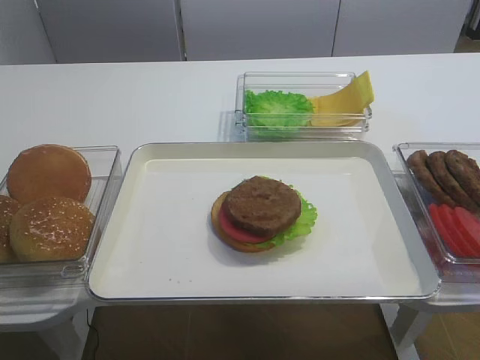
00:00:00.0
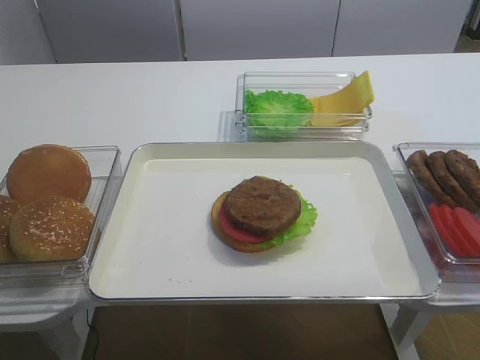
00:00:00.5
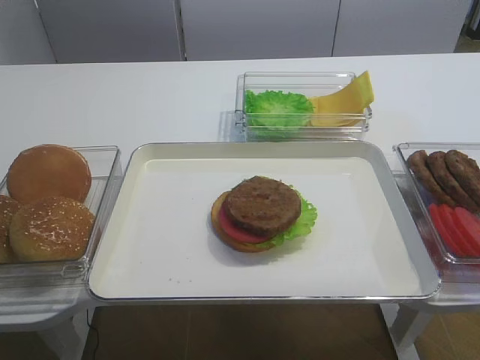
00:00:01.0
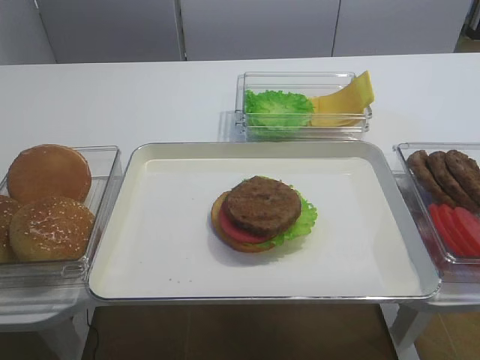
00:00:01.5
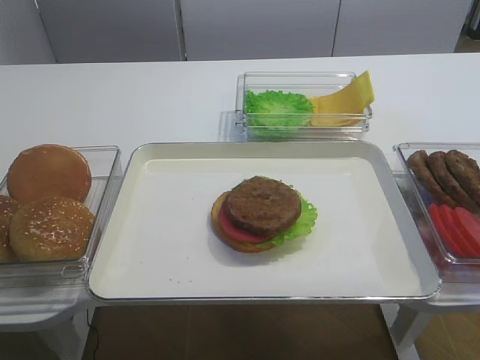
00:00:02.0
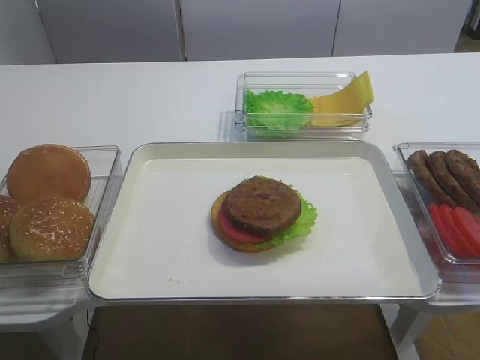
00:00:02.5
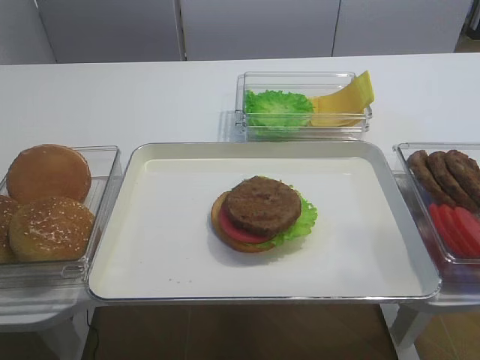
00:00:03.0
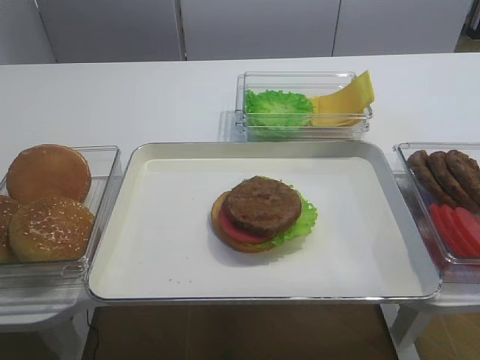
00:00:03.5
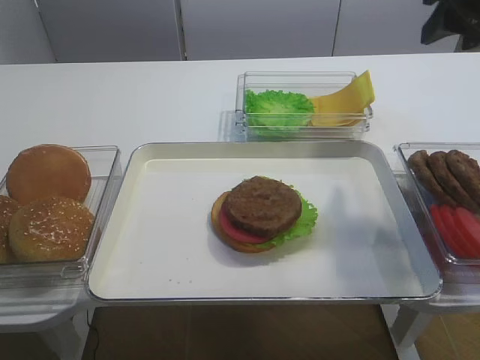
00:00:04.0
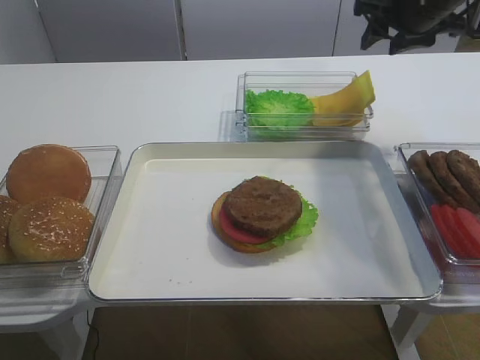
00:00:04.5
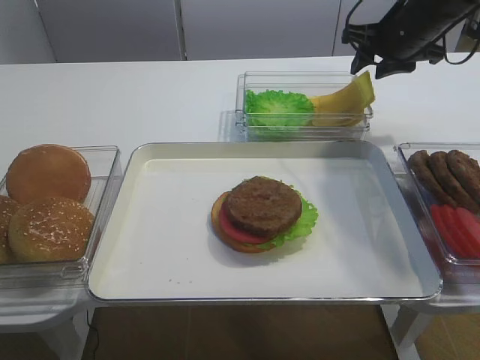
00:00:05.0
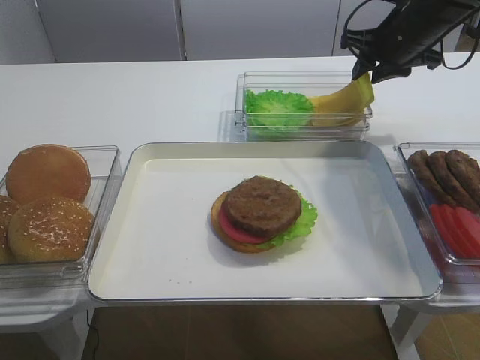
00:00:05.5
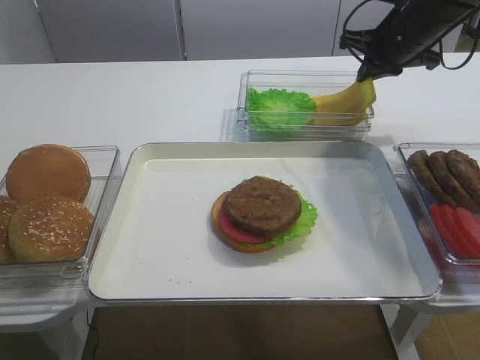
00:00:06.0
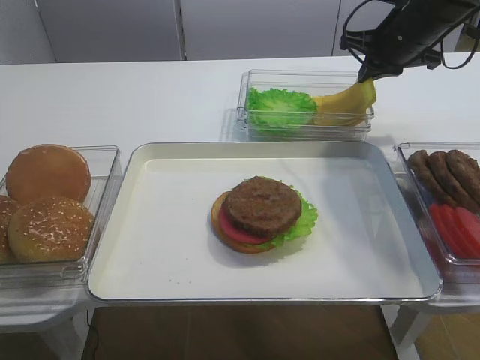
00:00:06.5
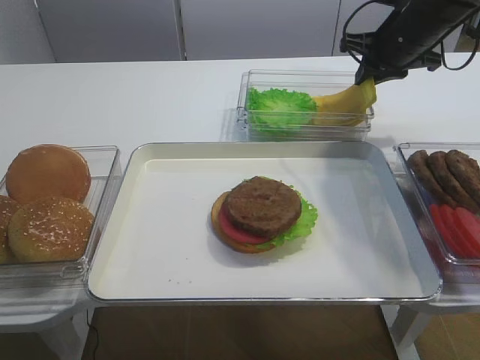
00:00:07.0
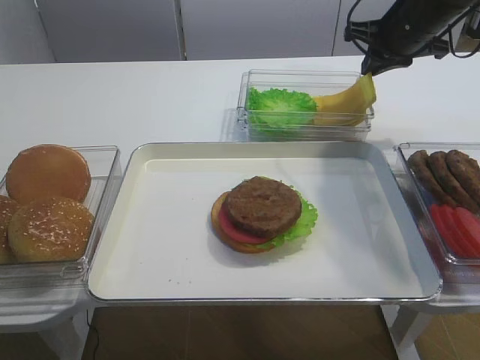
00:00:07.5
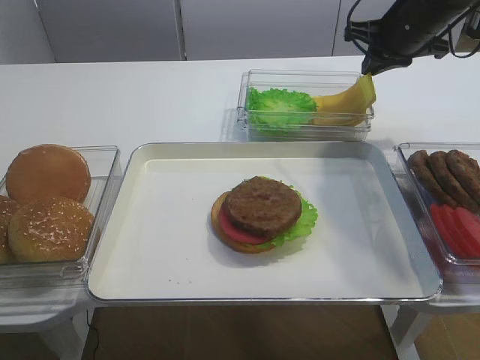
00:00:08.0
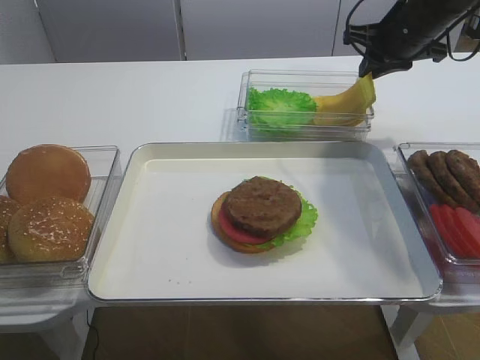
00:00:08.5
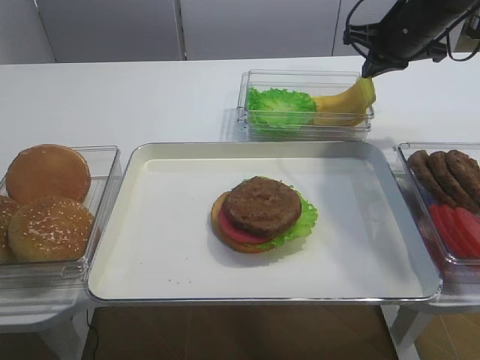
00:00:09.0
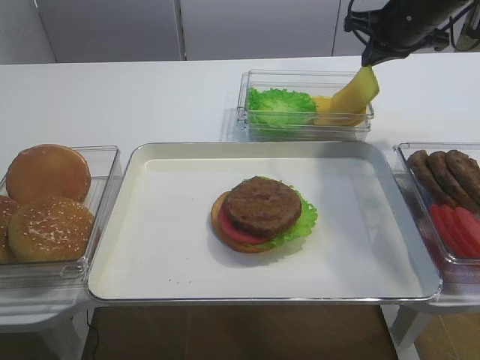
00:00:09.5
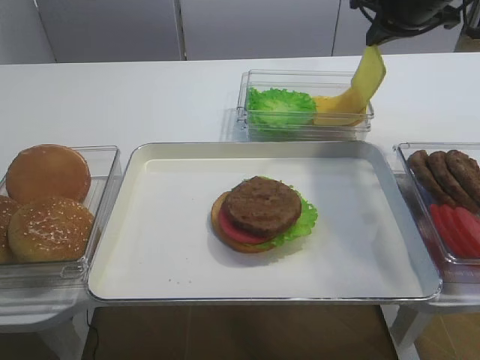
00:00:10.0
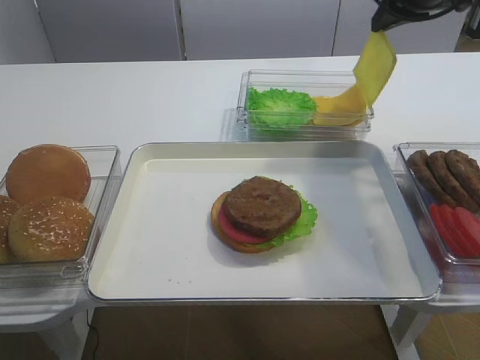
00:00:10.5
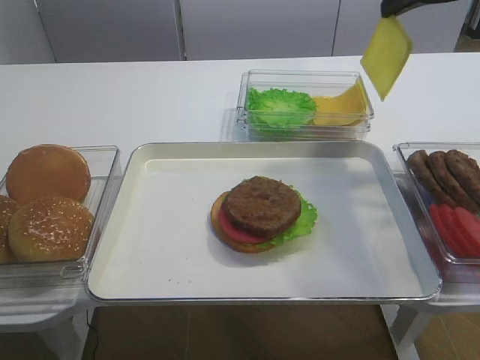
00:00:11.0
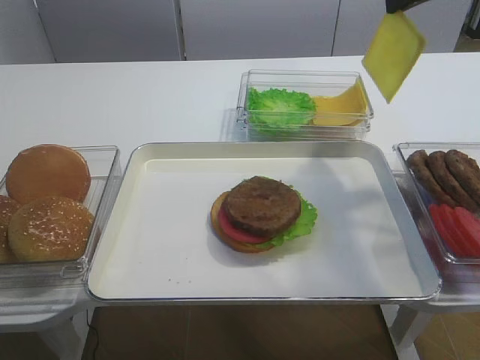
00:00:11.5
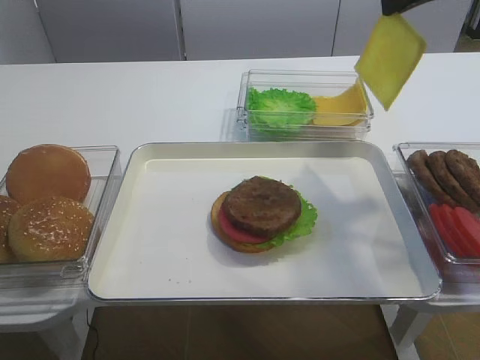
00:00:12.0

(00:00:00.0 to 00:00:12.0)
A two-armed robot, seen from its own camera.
Step, 00:00:00.0 - 00:00:10.5: Pick up the cheese slice with the right gripper.
00:00:02.0 - 00:00:04.0: The right gripper shifts approximately 30 cm forward.
00:00:04.0 - 00:00:06.0: The right gripper goes roughly 20 cm forward and downward, and closes.
00:00:06.0 - 00:00:08.0: The grippers make only small movements.
00:00:08.0 - 00:00:10.0: The grippers stay close to where they were, moving slightly.
00:00:10.0 - 00:00:12.0: The right gripper is displaced backward and upward by some 10 cm.

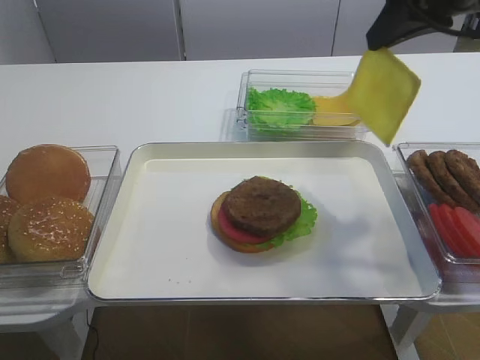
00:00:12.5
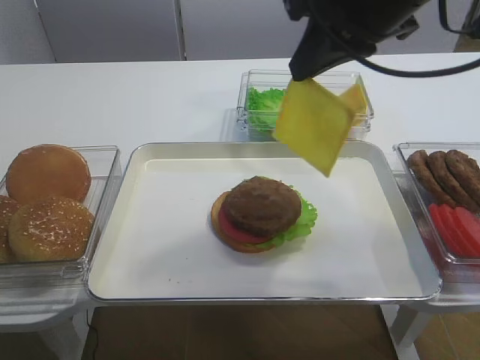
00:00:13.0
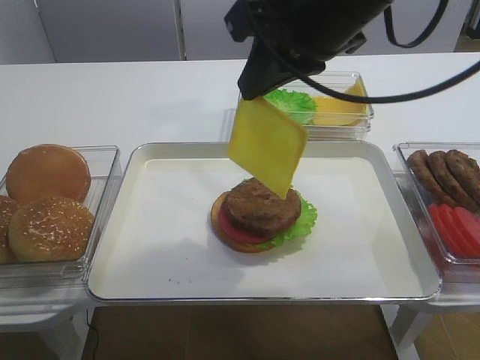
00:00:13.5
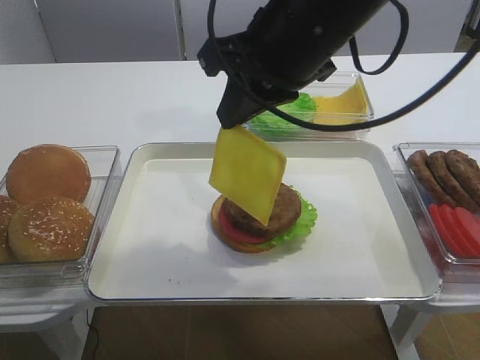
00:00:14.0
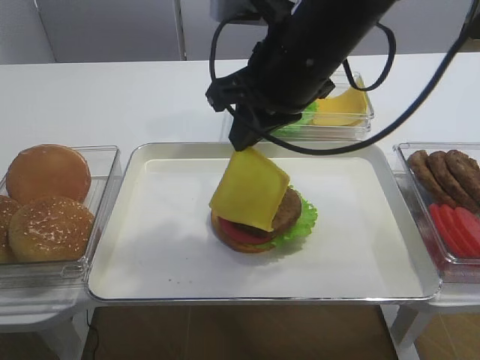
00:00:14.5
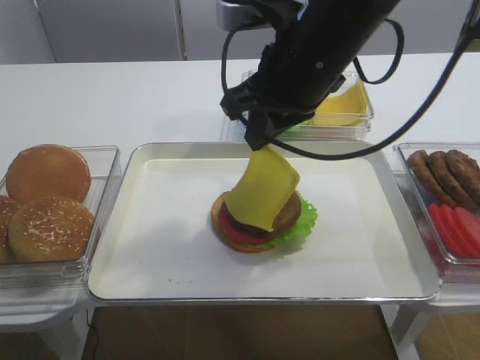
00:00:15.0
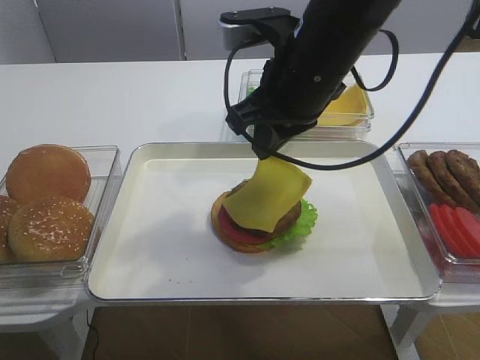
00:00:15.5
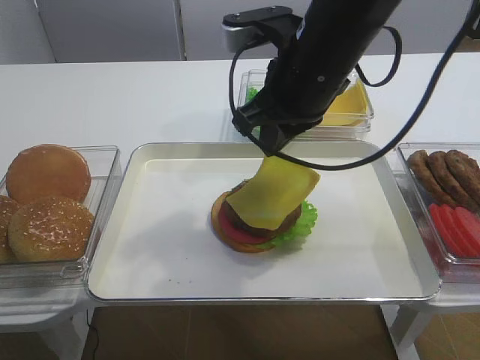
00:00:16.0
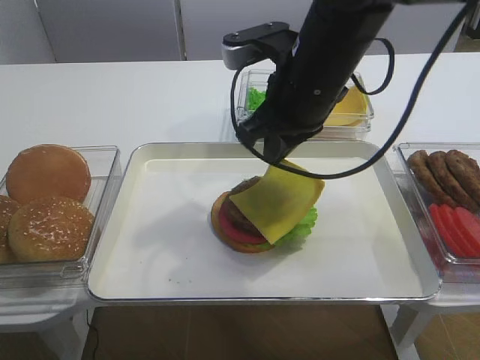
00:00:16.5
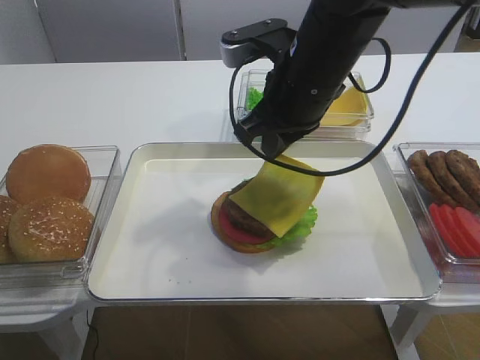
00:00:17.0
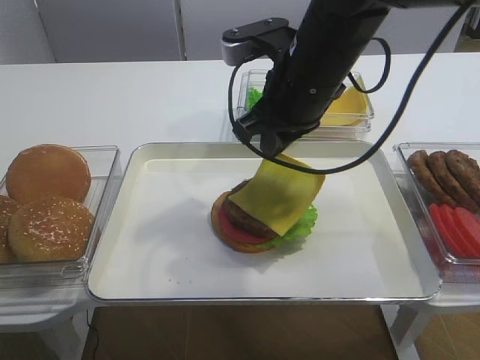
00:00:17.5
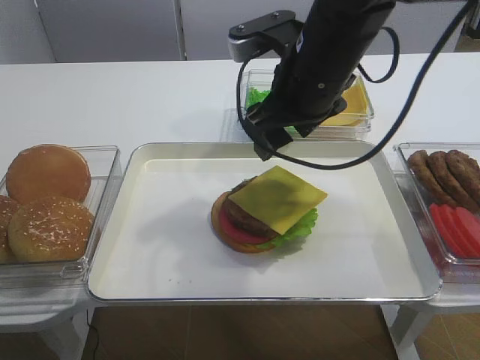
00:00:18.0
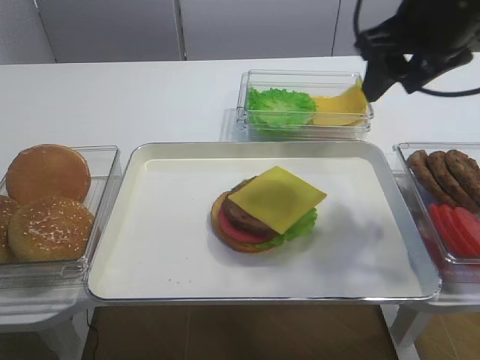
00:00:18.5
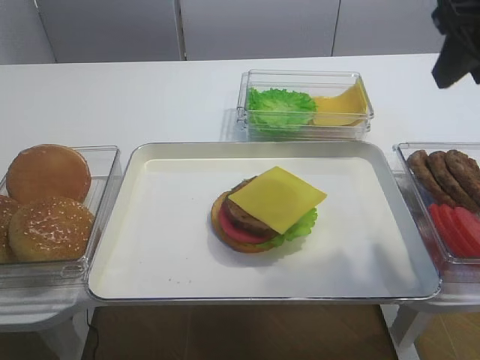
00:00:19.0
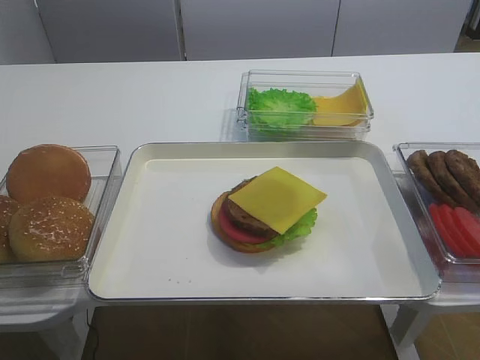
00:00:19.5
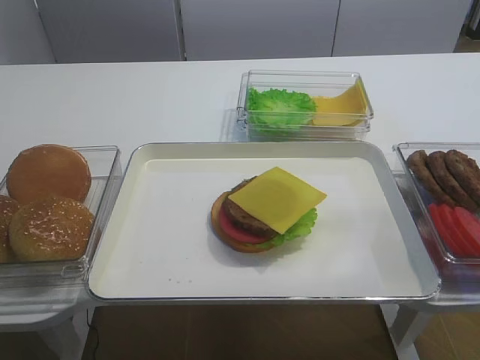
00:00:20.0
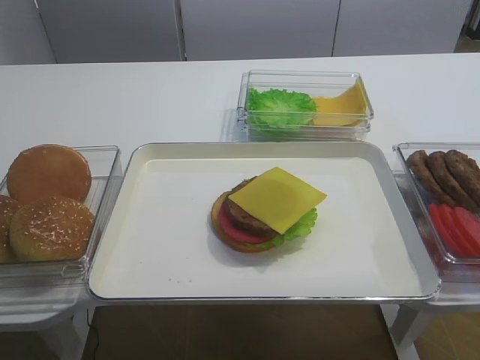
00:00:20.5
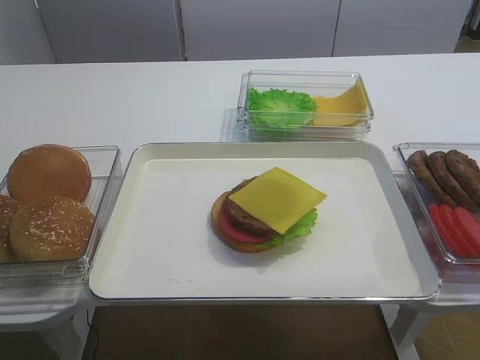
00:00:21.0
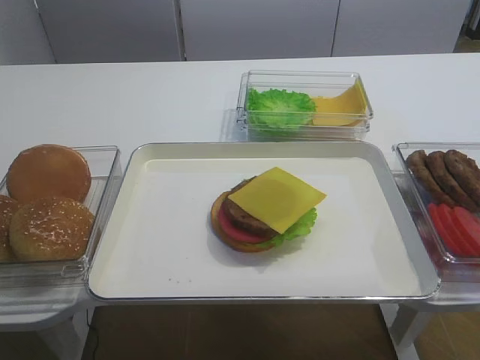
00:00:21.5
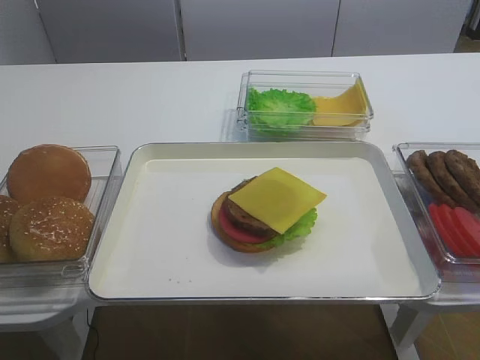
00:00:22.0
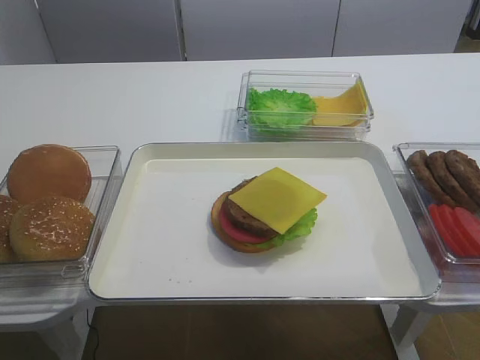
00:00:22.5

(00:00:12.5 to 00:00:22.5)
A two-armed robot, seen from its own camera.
Step, 00:00:12.5 - 00:00:18.0: Place the cheese slice on the cutlet with the right gripper.
00:00:12.5 - 00:00:14.5: The right gripper goes roughly 15 cm to the left and downward.
00:00:14.5 - 00:00:16.5: The grippers move only a little.
00:00:16.5 - 00:00:18.5: The right gripper heads to the right and upward, covering about 10 cm, and opens its fingers.
00:00:18.5 - 00:00:20.5: The right gripper heads backward, covering approximately 35 cm.

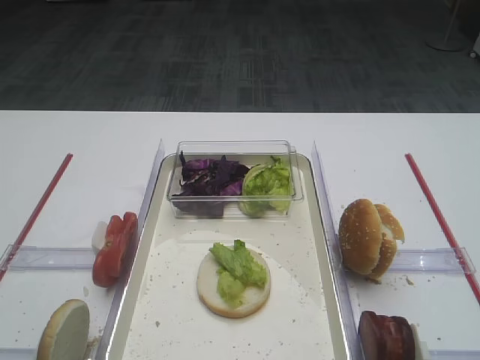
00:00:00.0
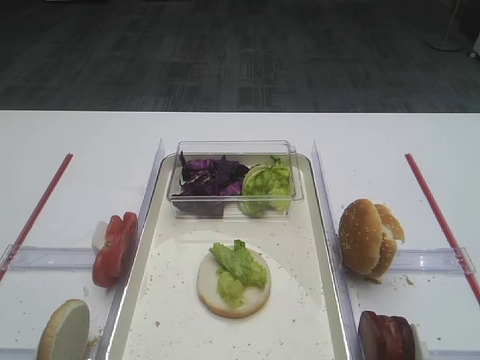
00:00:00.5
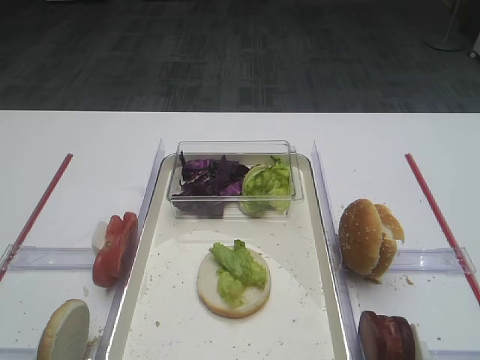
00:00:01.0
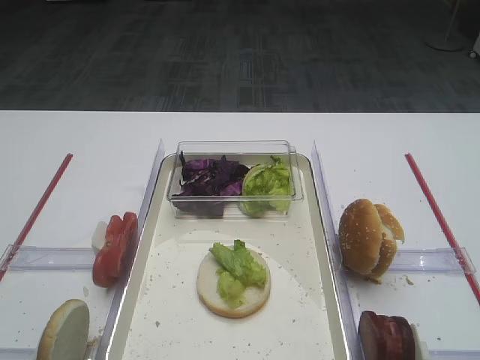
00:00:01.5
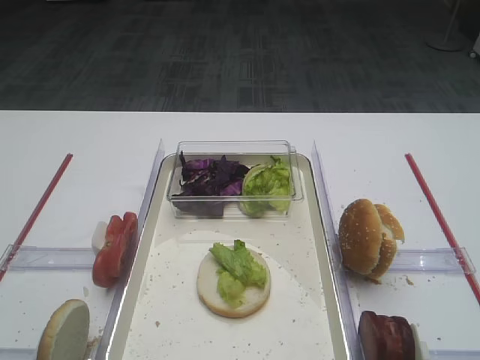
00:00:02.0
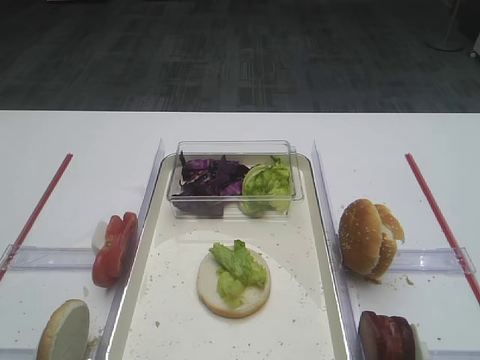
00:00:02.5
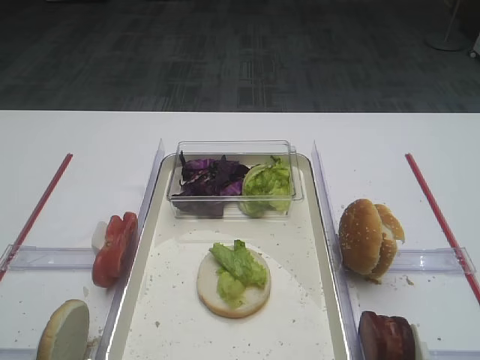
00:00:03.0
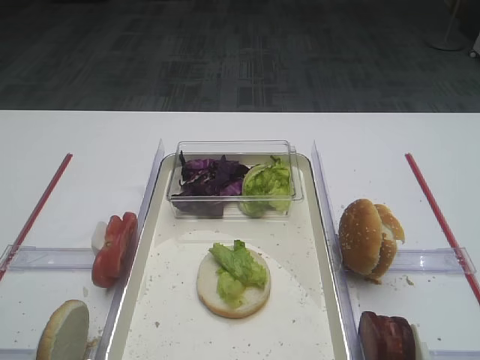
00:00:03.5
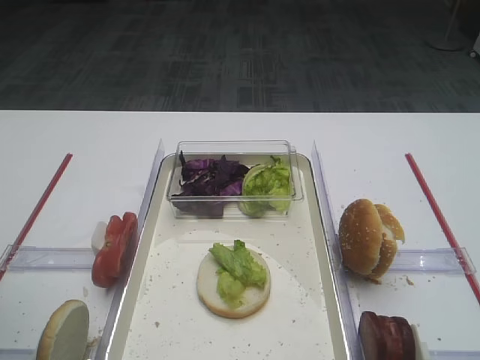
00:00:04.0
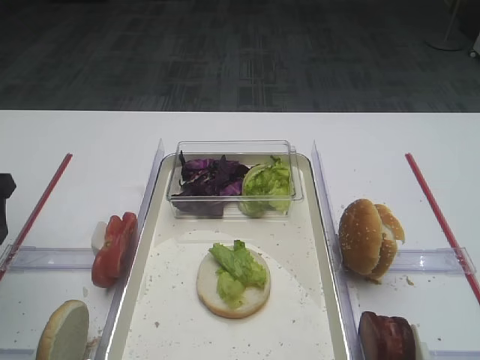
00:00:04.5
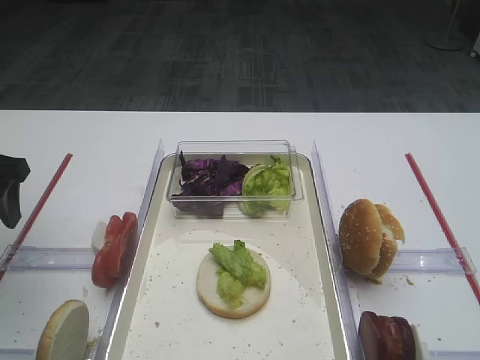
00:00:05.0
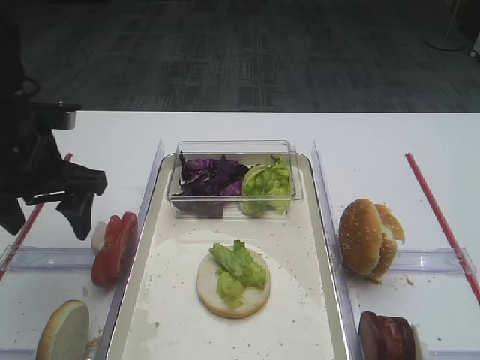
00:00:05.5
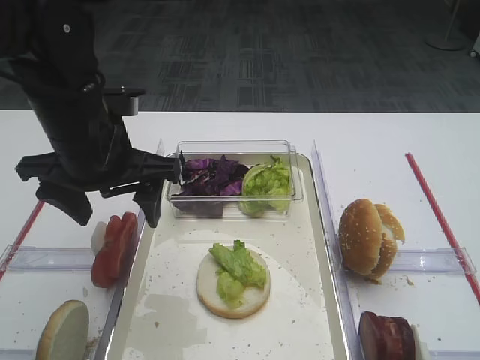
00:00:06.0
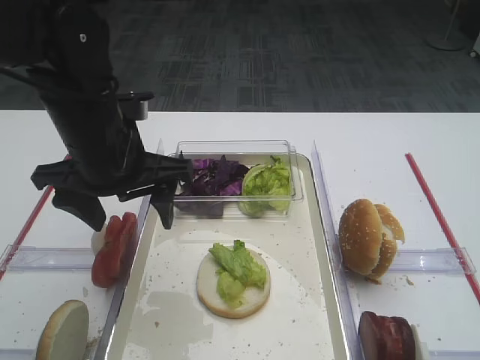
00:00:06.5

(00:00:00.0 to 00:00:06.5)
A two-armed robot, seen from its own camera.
00:00:02.0 - 00:00:04.5: The left gripper goes some 30 cm forward.
00:00:04.5 - 00:00:06.5: The left gripper travels to the right by about 20 cm.
